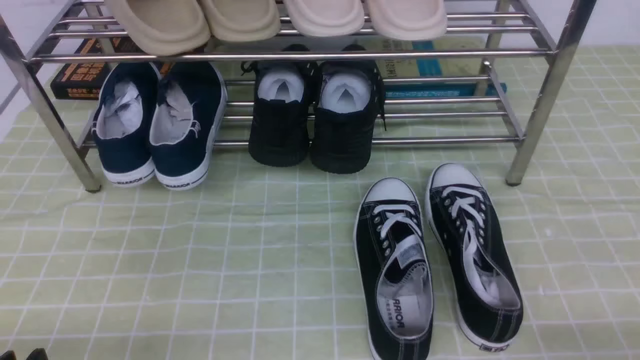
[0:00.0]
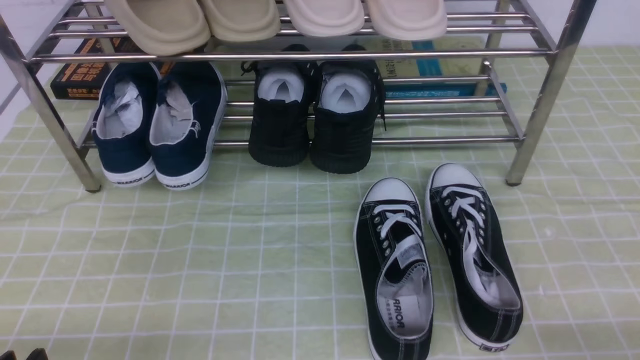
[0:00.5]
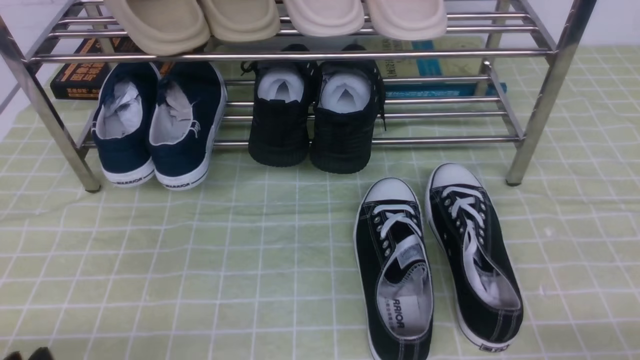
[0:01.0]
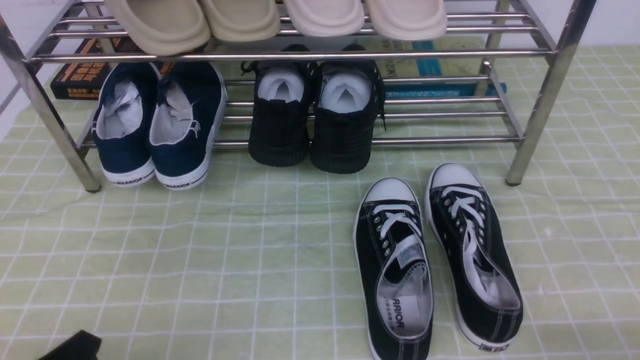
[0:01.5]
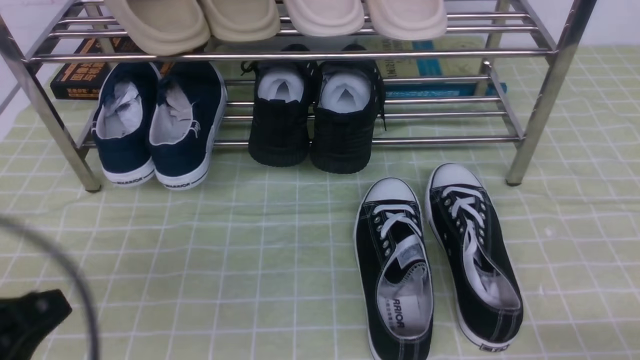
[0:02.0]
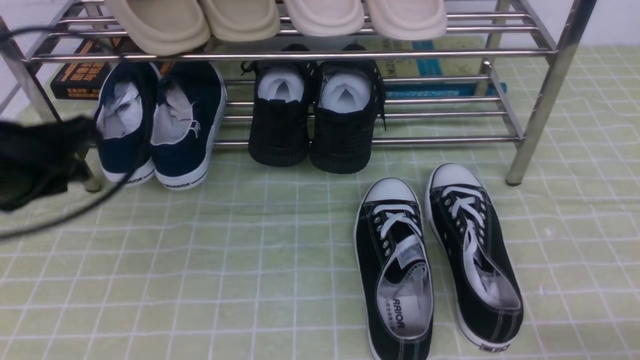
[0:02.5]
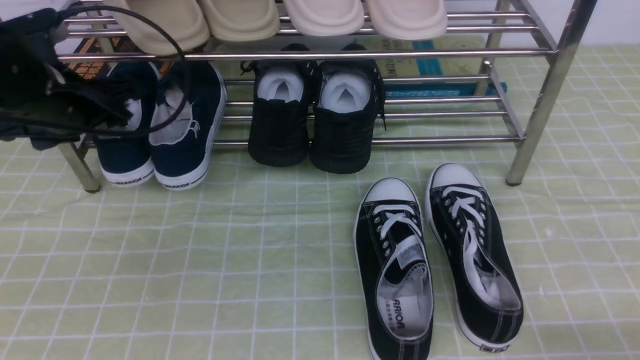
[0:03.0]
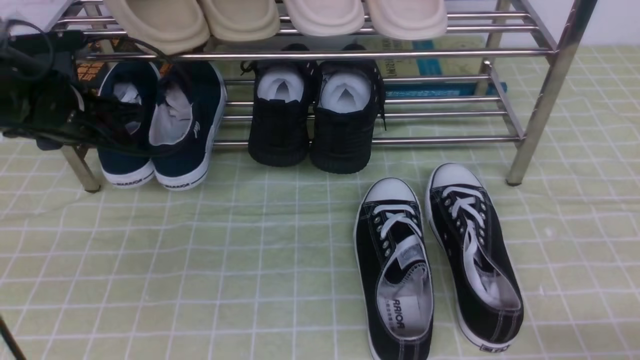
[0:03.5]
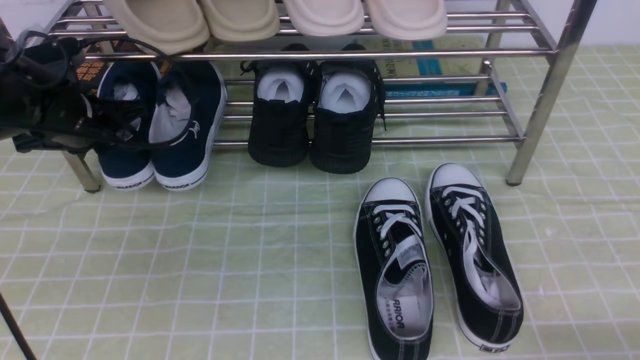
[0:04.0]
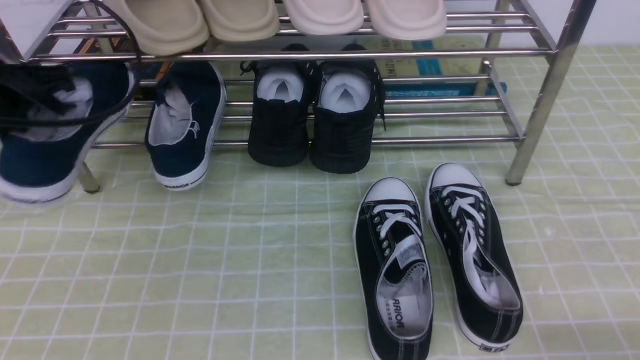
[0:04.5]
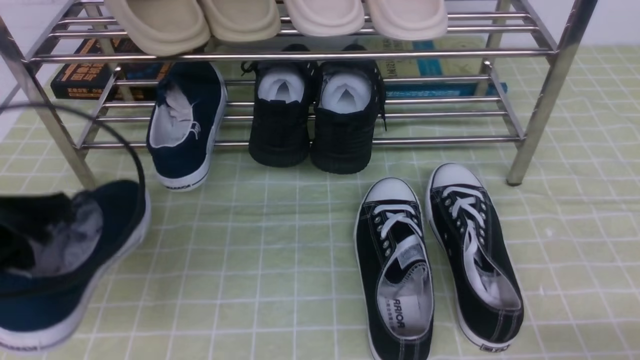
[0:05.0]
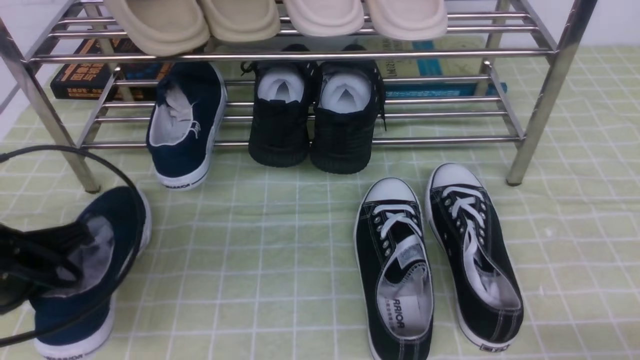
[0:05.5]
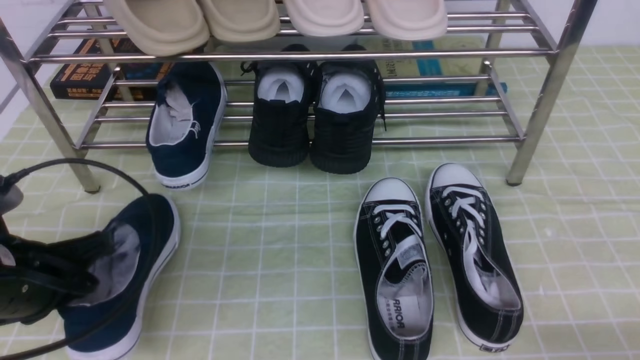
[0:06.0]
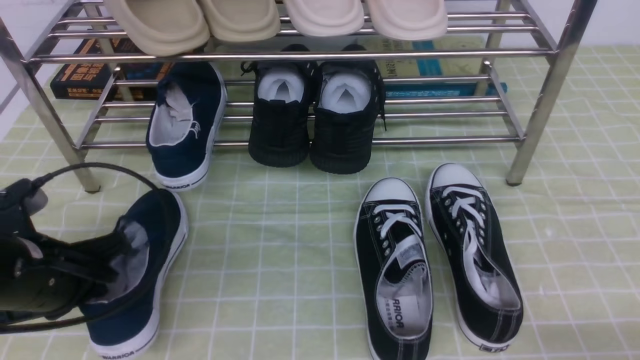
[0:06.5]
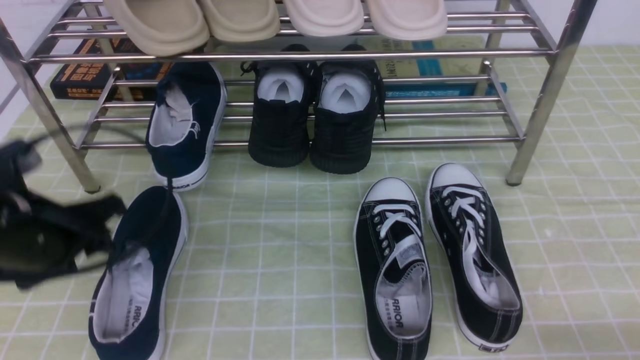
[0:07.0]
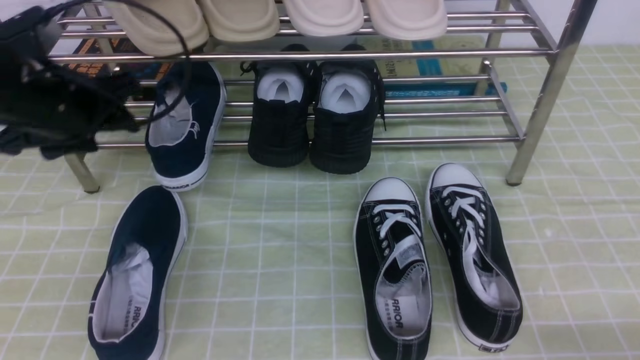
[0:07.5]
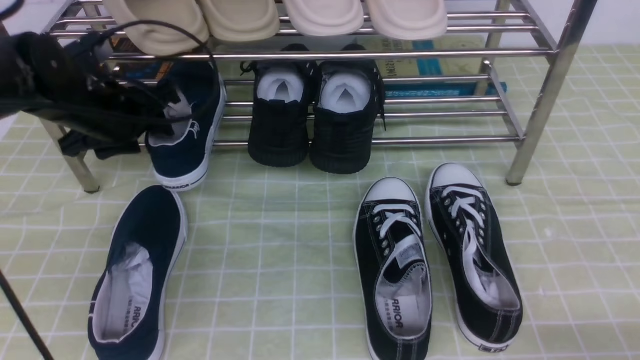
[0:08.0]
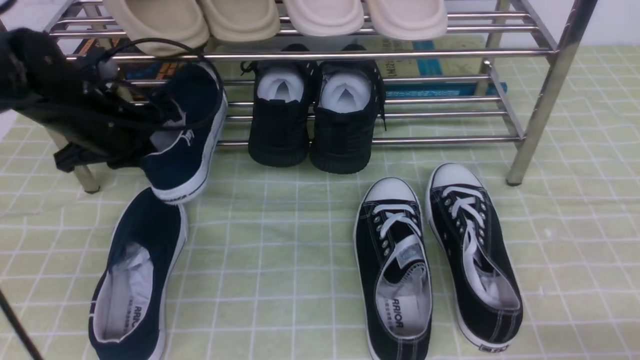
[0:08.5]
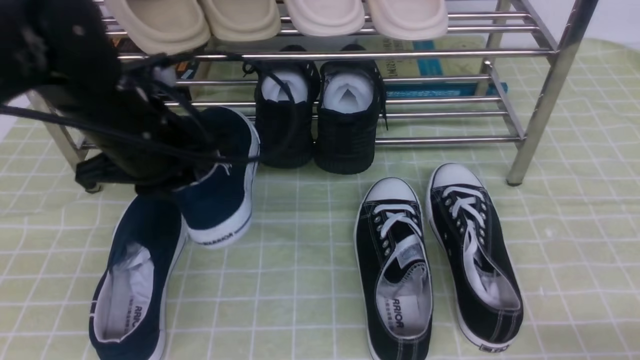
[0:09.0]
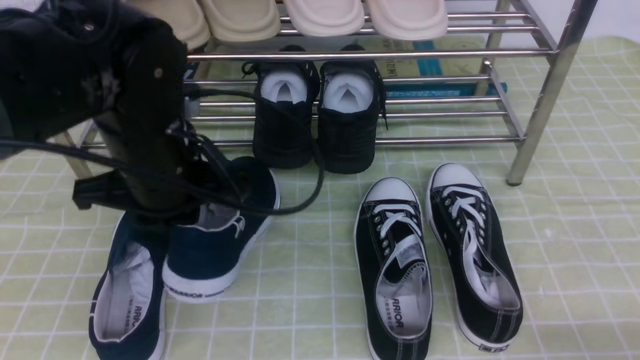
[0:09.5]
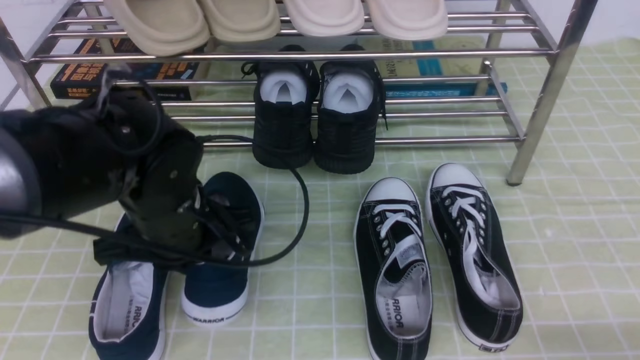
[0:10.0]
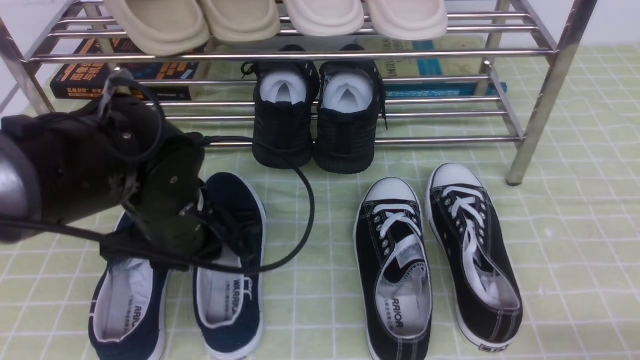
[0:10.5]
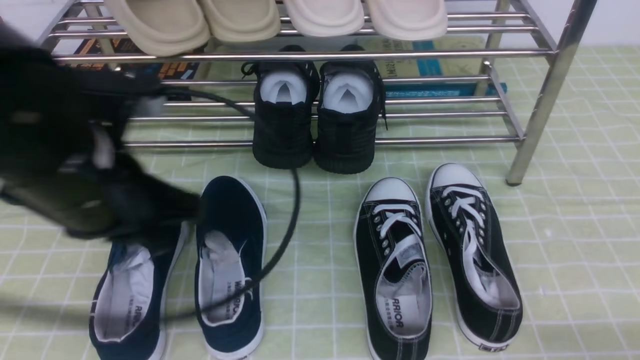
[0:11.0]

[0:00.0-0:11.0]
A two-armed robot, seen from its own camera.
Step, 0:00.0 to 0:03.5: use the left arm to clamp a shoe on the left side of the shoe rack.
Step, 0:04.0 to 0:07.0: Use your left arm to remove the clamped shoe from the shoe rack and put it down.
Step, 0:07.5 to 0:08.0: use the left arm to clamp a shoe on the left side of the shoe rack.
Step, 0:08.5 to 0:10.5: Use your left arm to remove the clamped shoe from the shoe rack and put it down.
0:00.0 to 0:02.0: The left gripper heads upward, covering roughly 10 cm, and closes.
0:02.0 to 0:03.5: The left gripper goes roughly 30 cm forward, and opens up.
0:03.5 to 0:05.5: The left gripper moves backward, about 20 cm, and closes.
0:05.5 to 0:07.5: The left gripper moves forward and upward, roughly 15 cm, and opens.
0:07.5 to 0:09.0: The left gripper is displaced to the right by some 10 cm, moves approximately 5 cm forward and comes back, and closes up.
0:09.0 to 0:11.0: The left gripper goes some 10 cm backward.

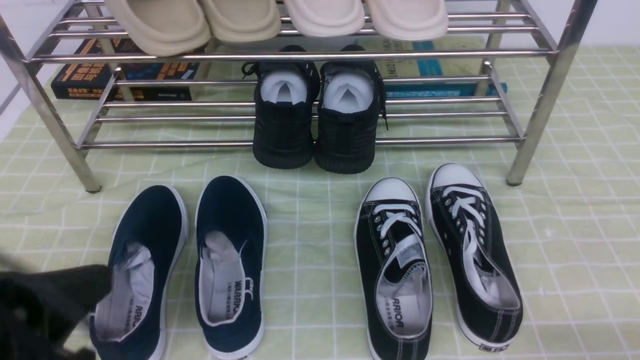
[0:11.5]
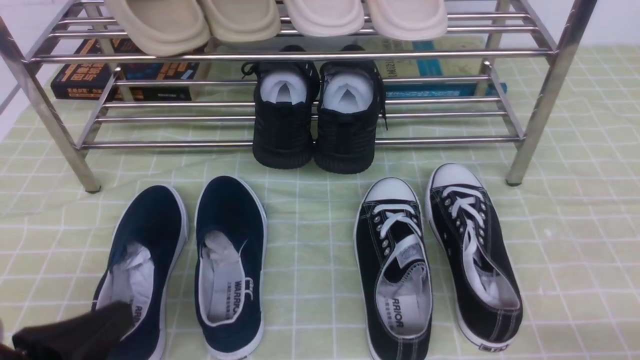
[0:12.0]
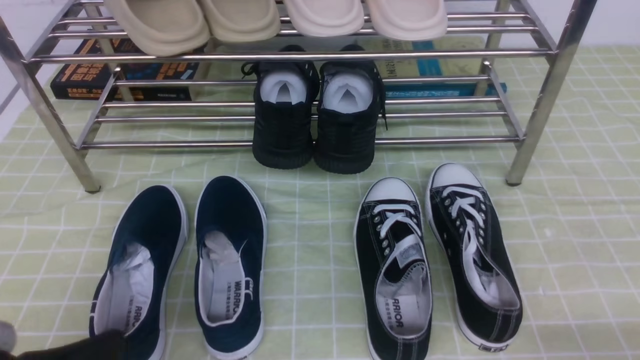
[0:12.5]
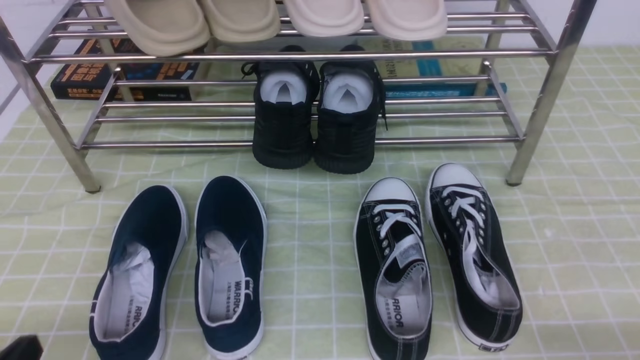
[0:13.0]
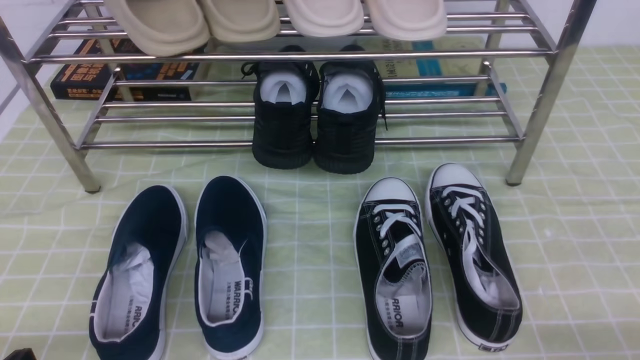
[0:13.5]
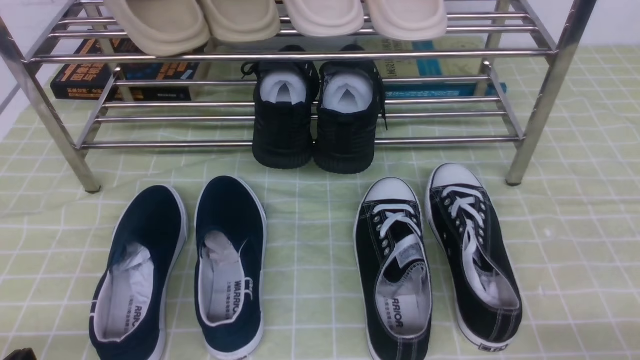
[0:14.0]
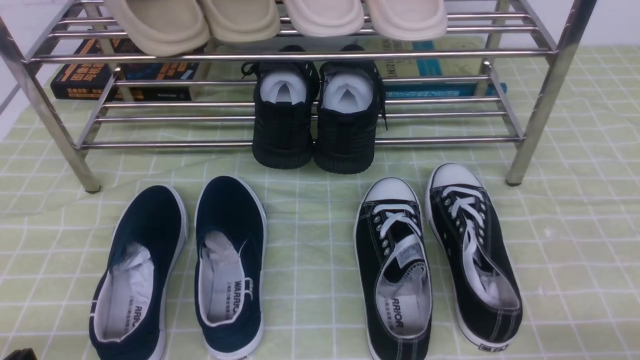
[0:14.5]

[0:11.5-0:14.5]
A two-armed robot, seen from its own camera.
0:11.5 to 0:13.0: The left gripper moves downward, some 10 cm.
